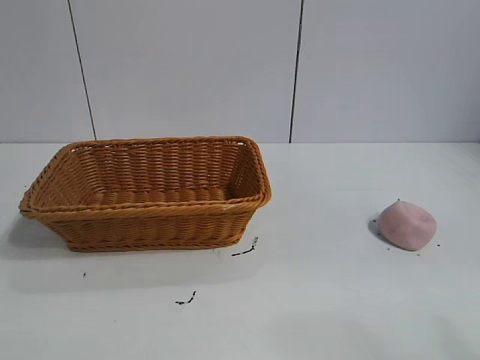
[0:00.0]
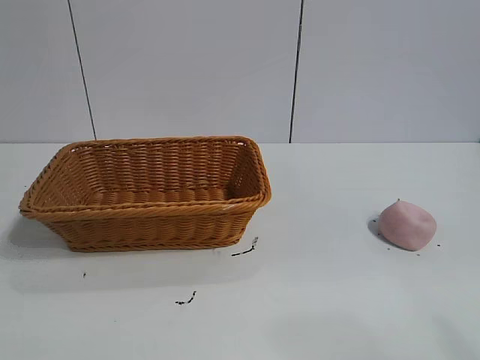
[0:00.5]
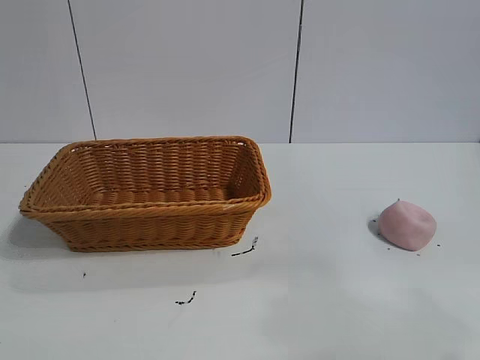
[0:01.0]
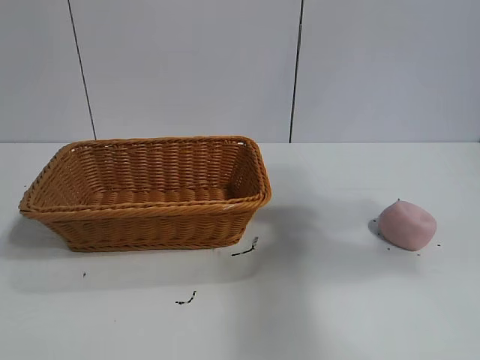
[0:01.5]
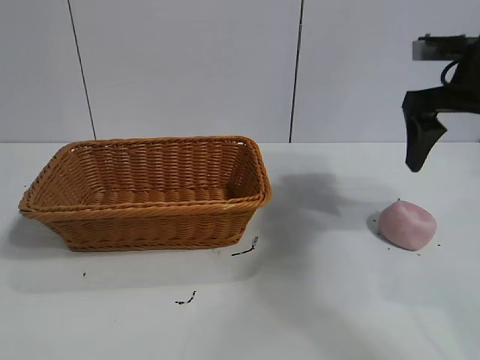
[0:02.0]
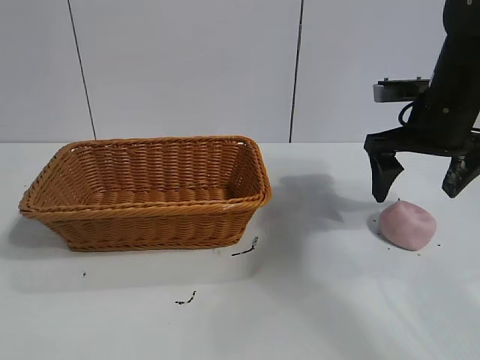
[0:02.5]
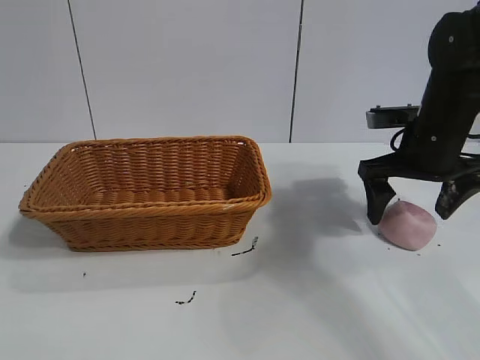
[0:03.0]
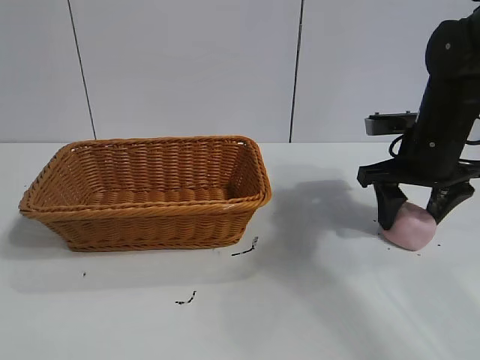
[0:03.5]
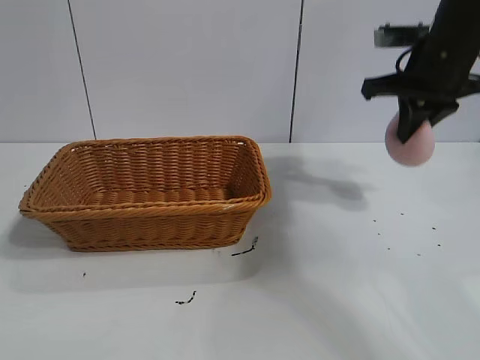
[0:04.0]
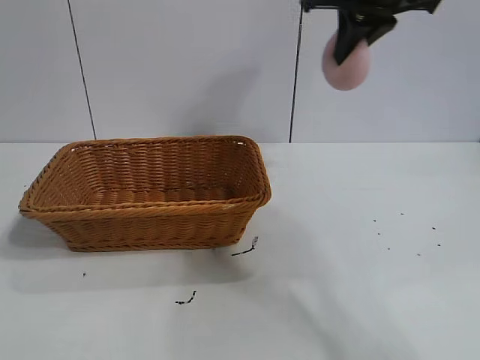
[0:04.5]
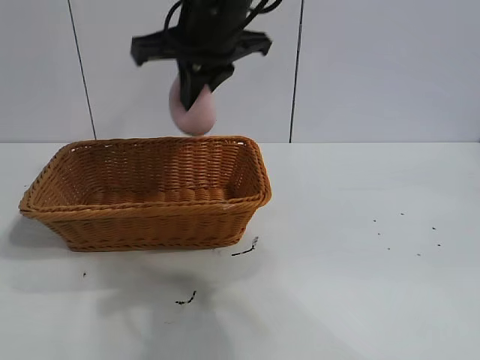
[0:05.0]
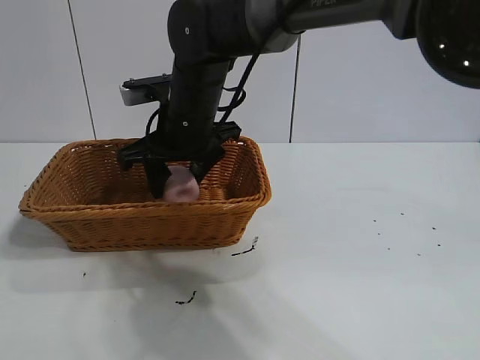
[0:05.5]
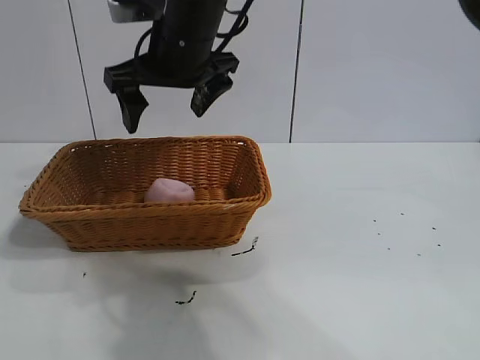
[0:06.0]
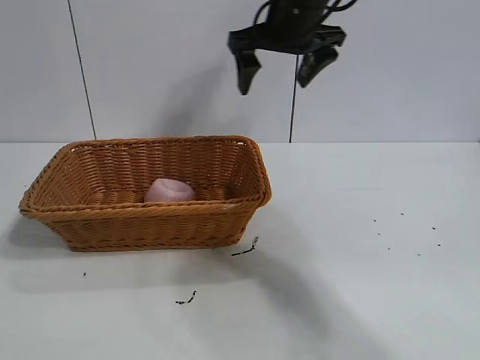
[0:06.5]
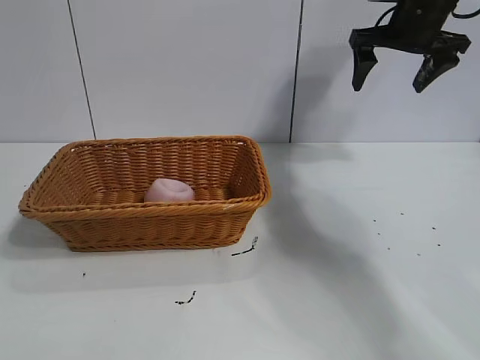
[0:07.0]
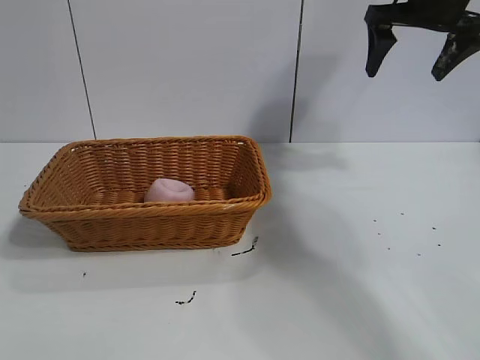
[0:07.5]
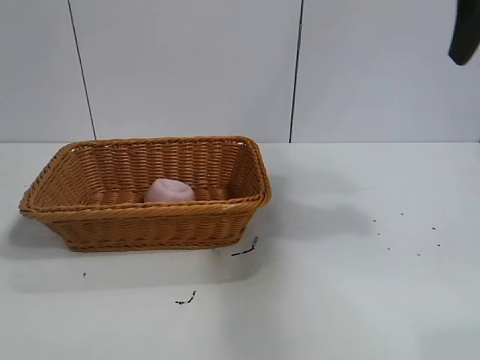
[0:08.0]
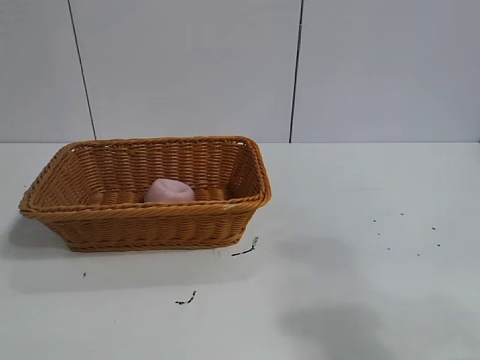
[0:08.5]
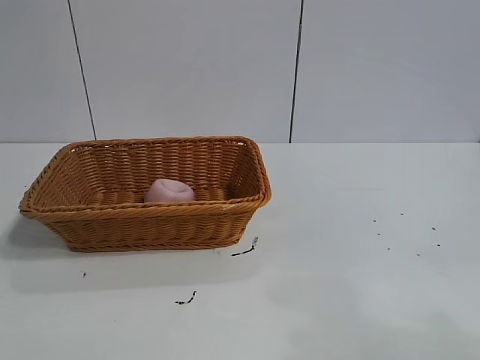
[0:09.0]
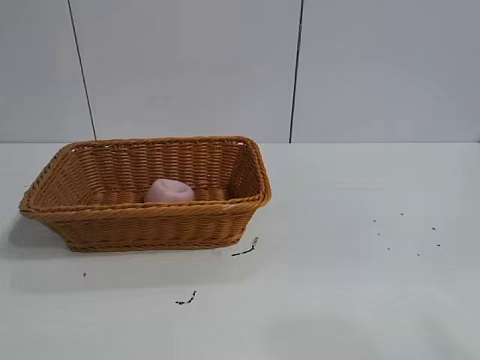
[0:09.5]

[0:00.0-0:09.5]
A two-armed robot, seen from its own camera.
Task of the whole recording: pick up the peach and put it into the basket.
Step, 0:01.0 to 0:03.5: Grasp the peach with right gripper.
Step, 0:04.0 to 0:05.5: Place the peach in the basket with right gripper.
